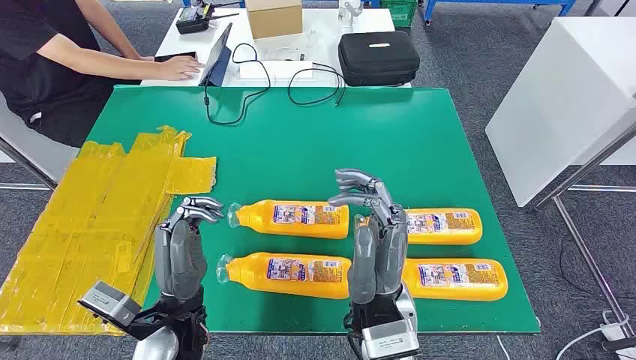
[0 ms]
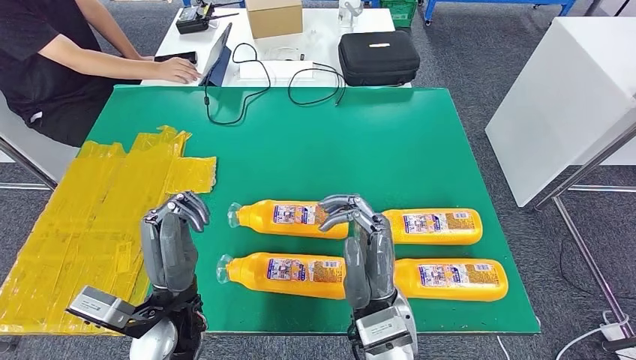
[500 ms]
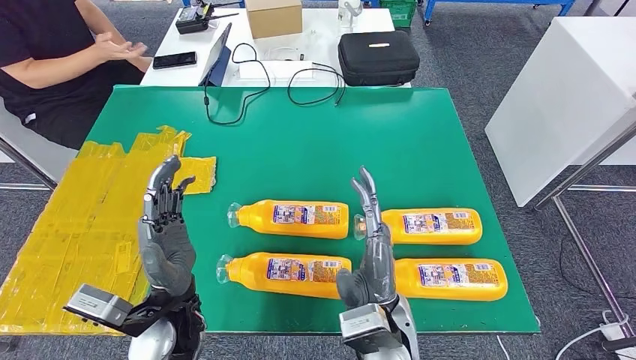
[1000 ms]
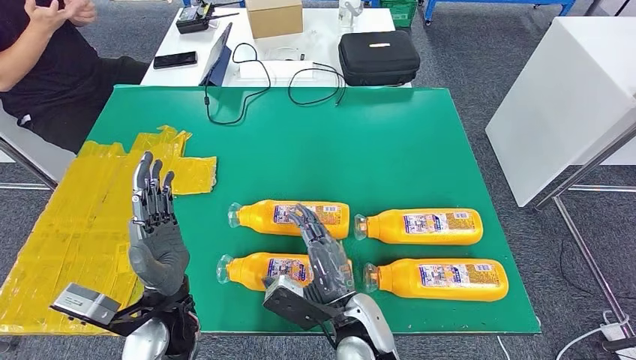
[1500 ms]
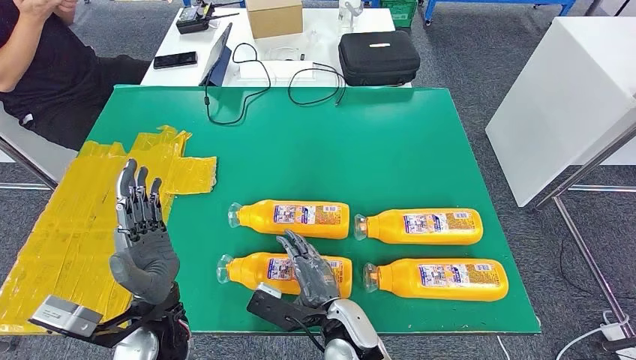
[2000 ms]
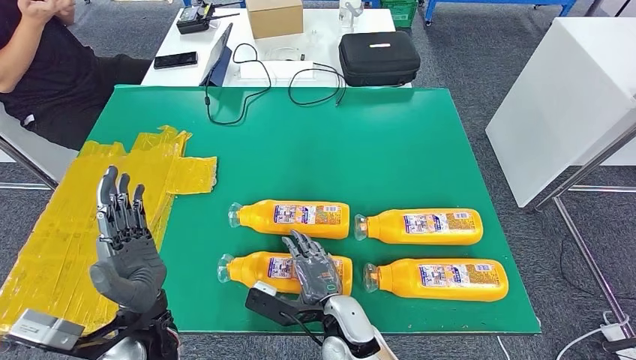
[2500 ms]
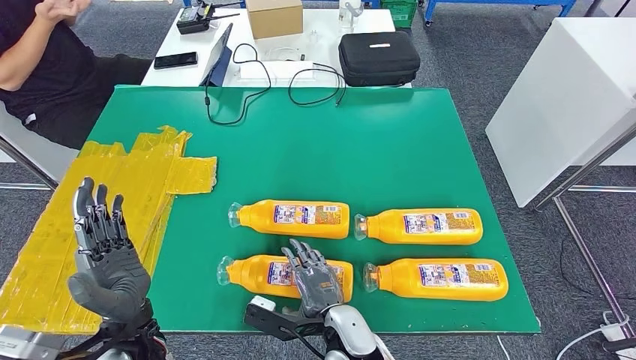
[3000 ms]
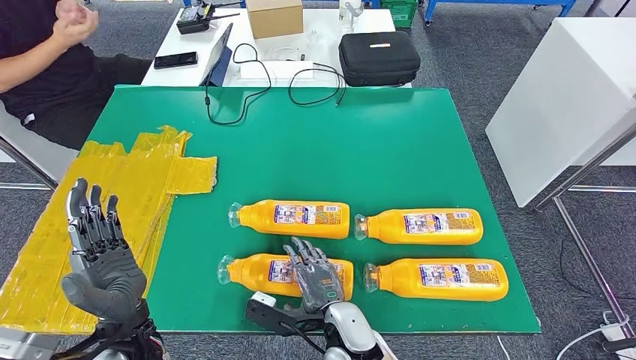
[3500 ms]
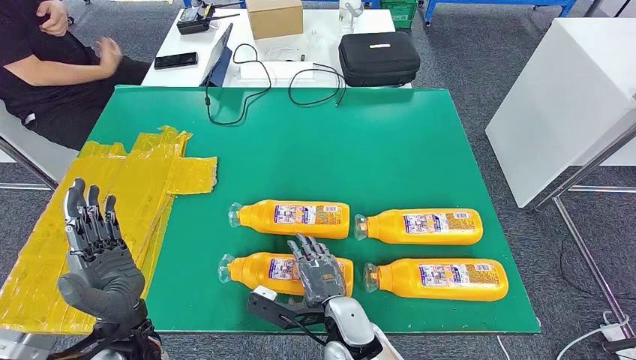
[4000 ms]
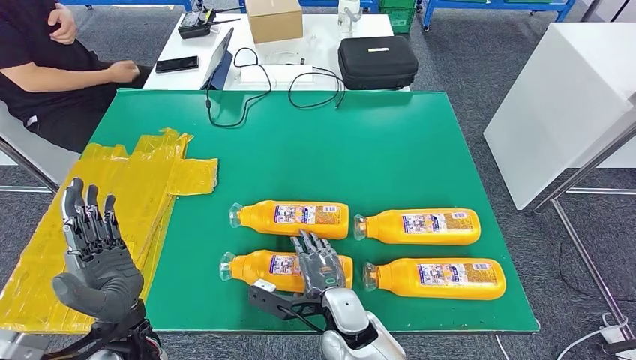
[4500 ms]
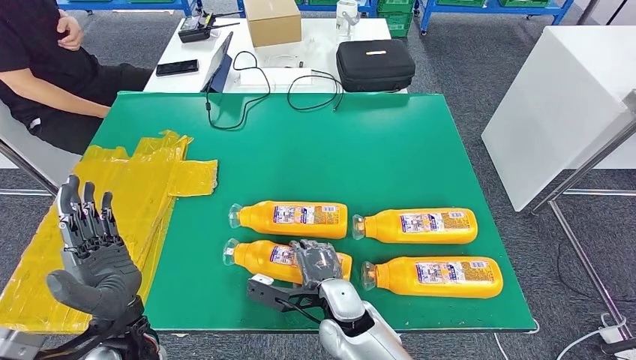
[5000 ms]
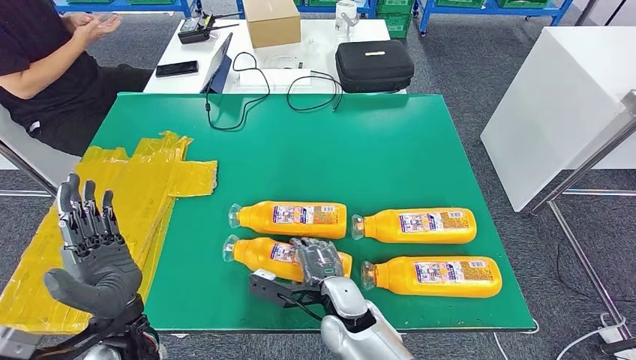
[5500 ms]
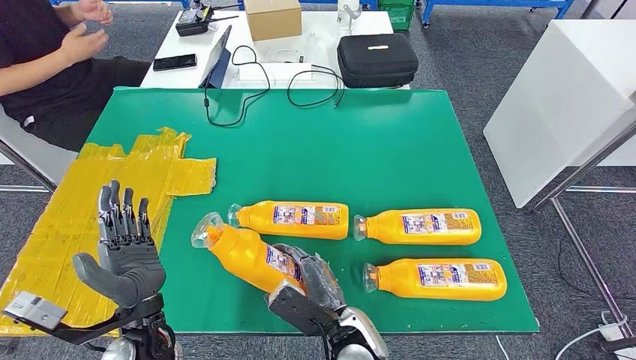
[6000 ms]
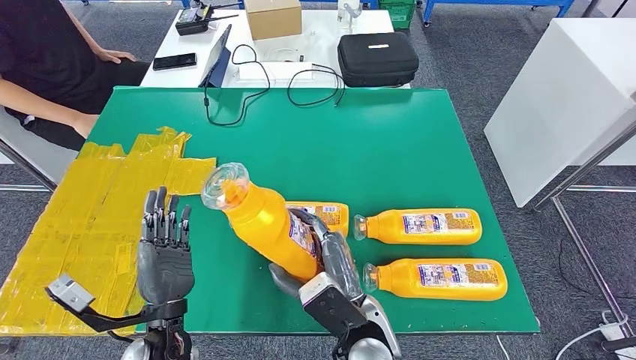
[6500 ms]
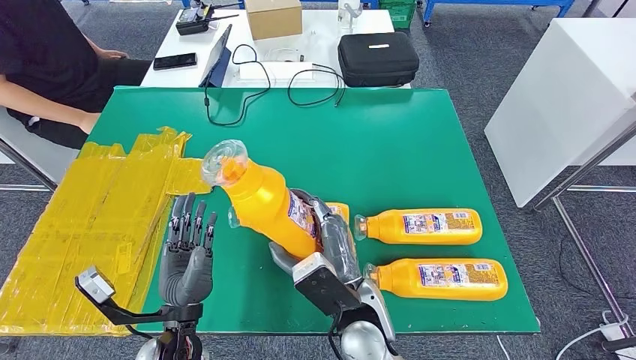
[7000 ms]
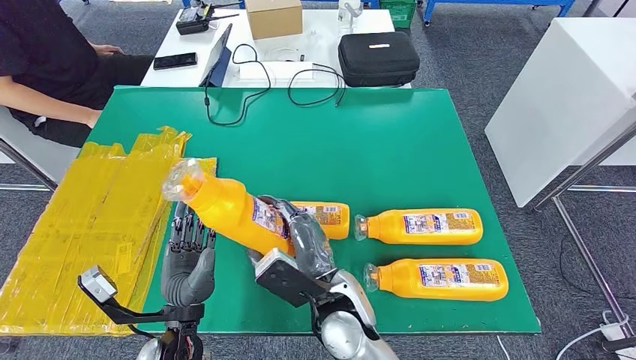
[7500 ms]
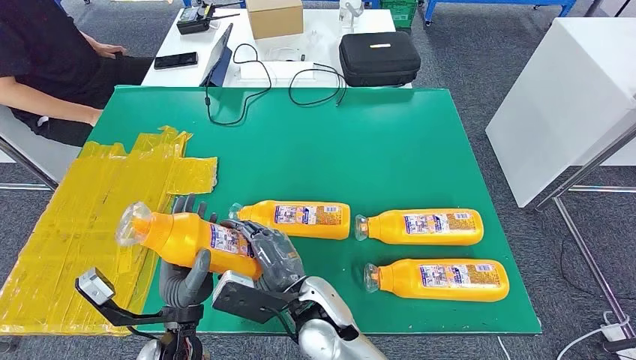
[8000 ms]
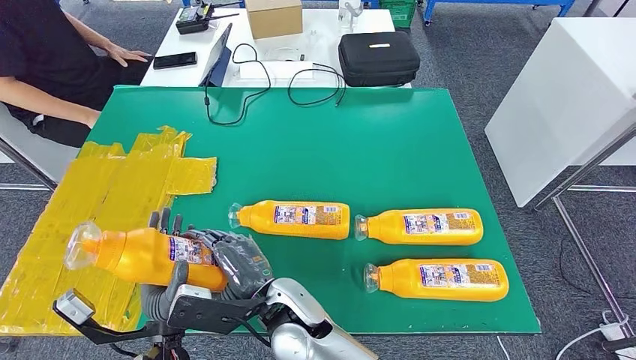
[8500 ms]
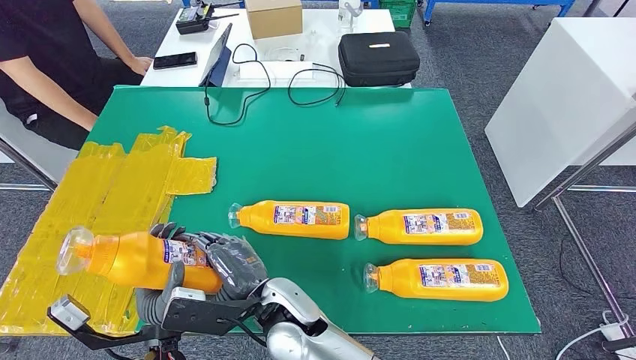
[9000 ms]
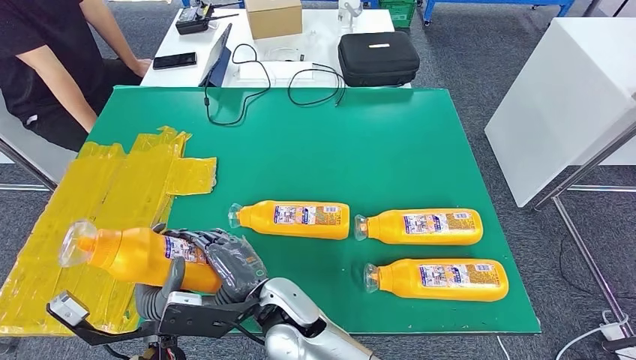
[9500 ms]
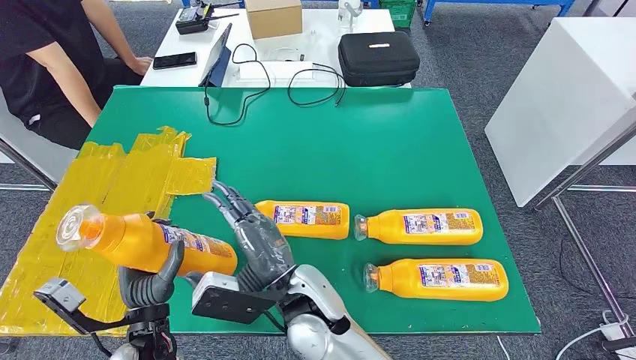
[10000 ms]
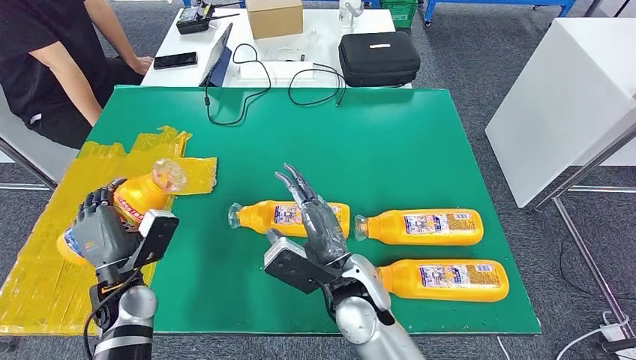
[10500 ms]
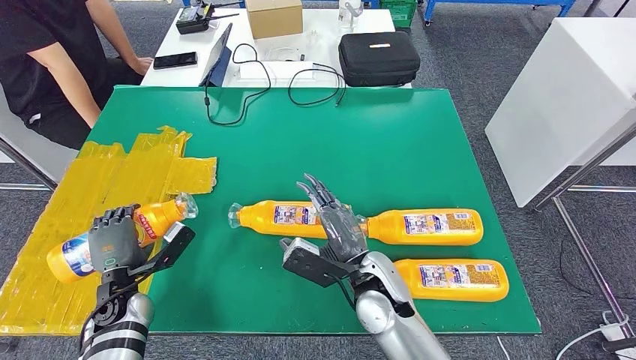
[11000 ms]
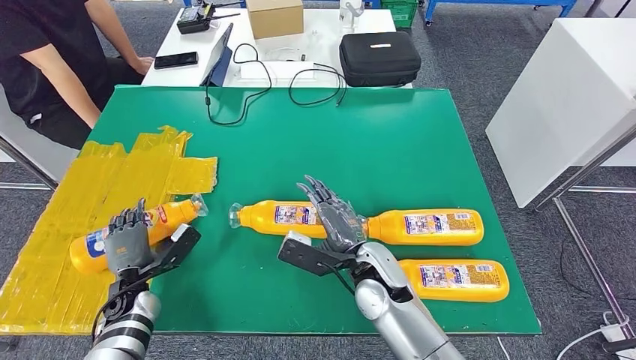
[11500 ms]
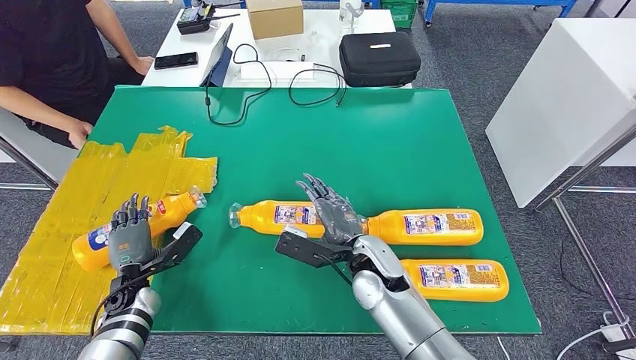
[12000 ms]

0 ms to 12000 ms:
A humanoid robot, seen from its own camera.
Step, 0 ms to 6500 ms: Take the bottle from the table.
Step, 7000 ms to 11500 ms: Flip the bottle to face forward.

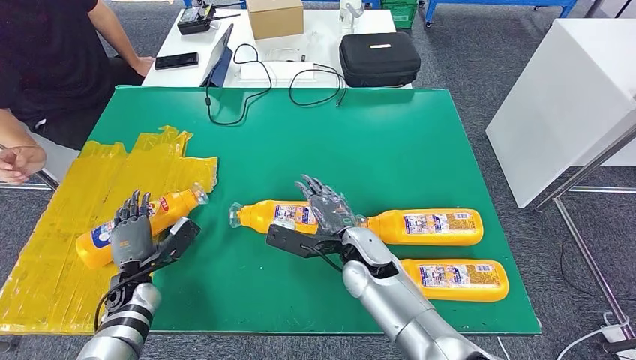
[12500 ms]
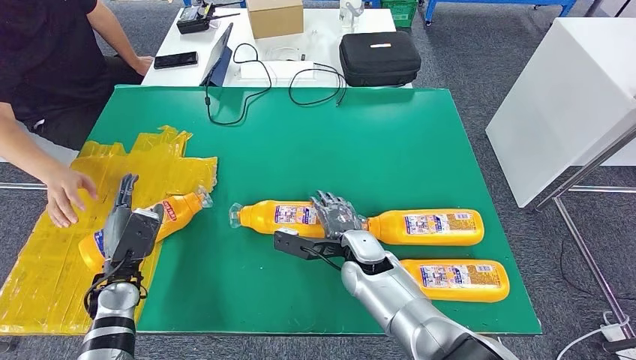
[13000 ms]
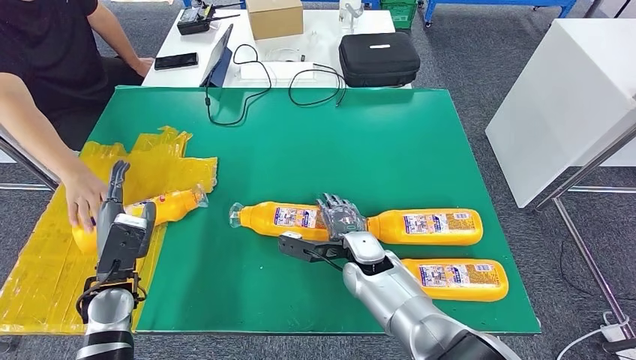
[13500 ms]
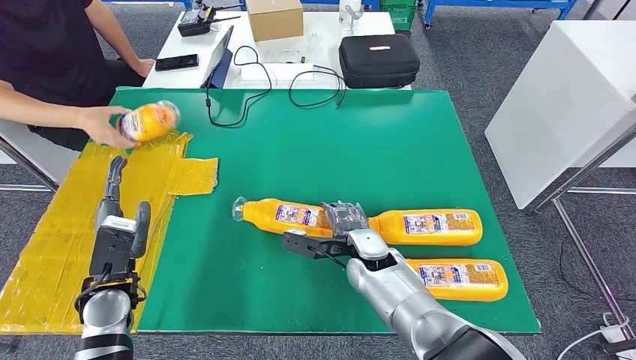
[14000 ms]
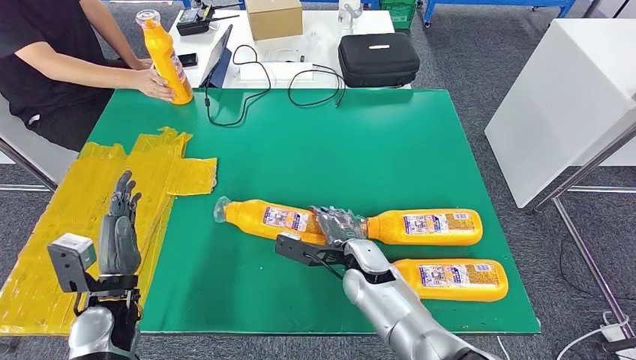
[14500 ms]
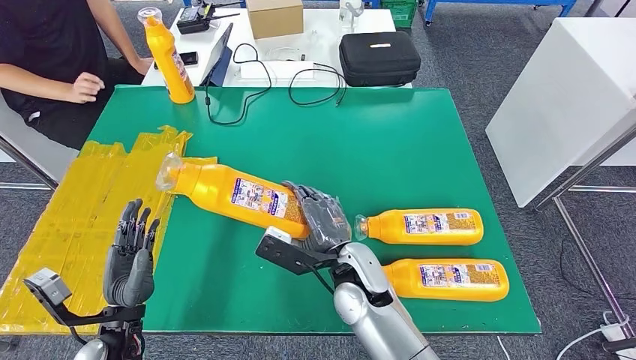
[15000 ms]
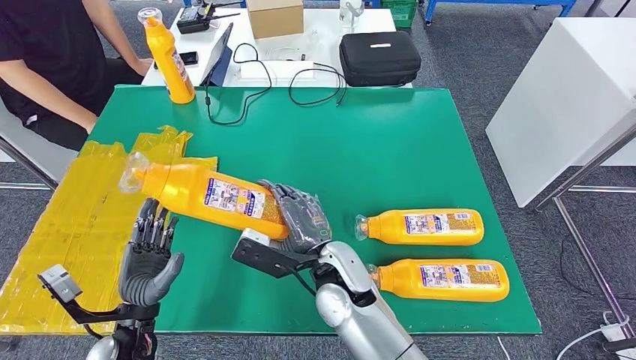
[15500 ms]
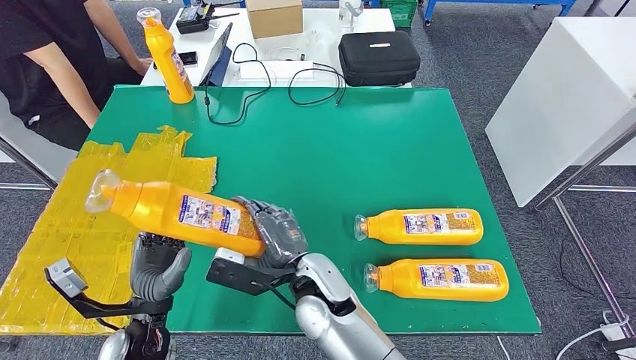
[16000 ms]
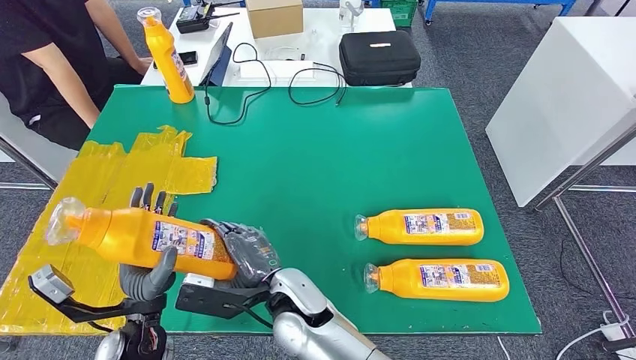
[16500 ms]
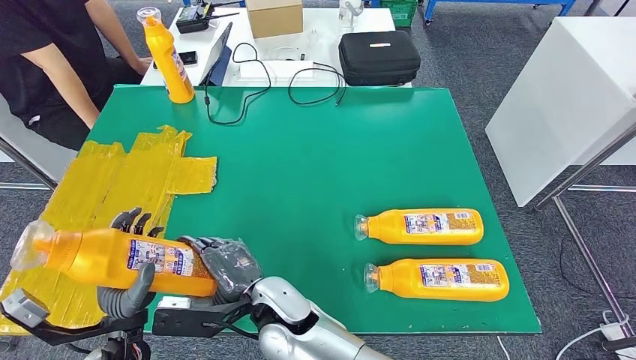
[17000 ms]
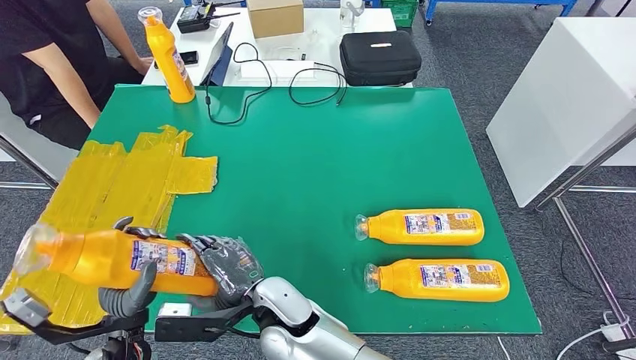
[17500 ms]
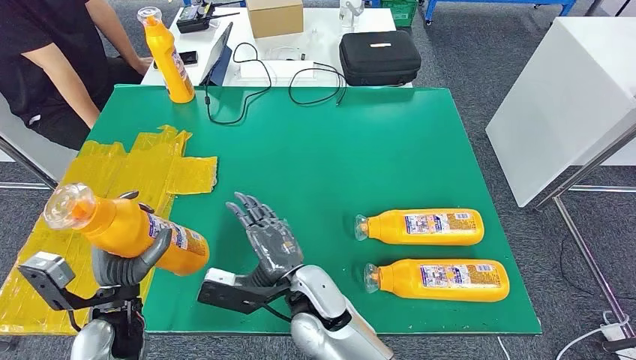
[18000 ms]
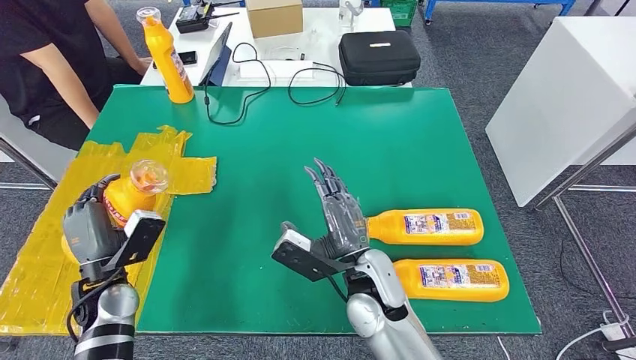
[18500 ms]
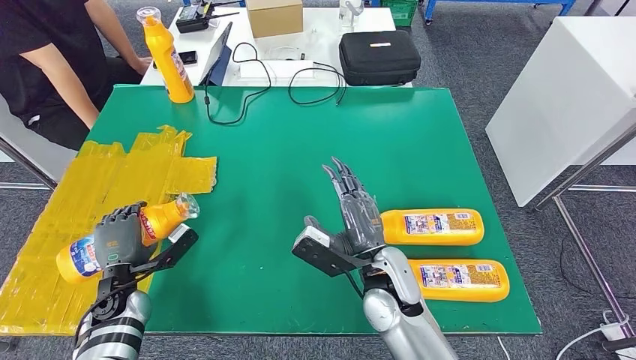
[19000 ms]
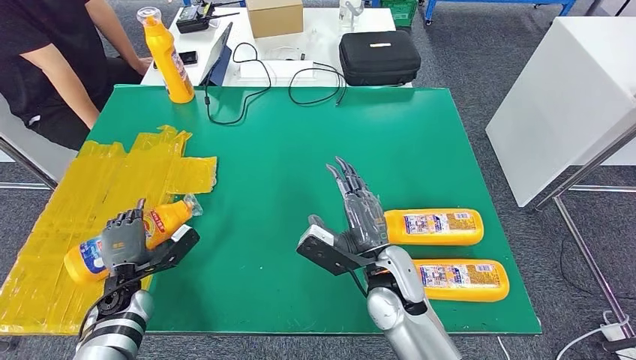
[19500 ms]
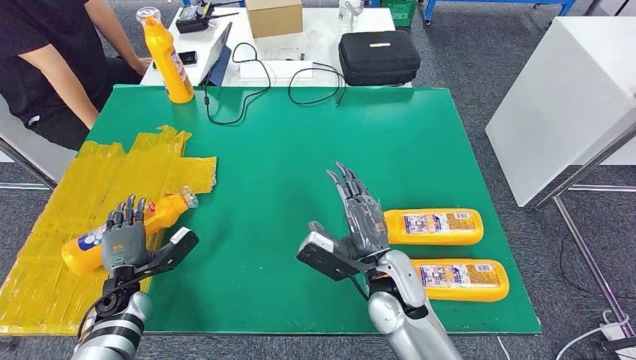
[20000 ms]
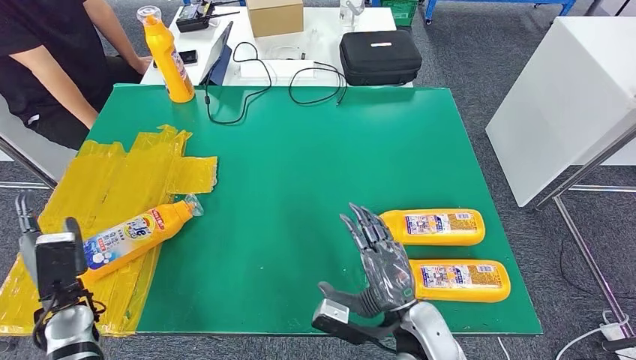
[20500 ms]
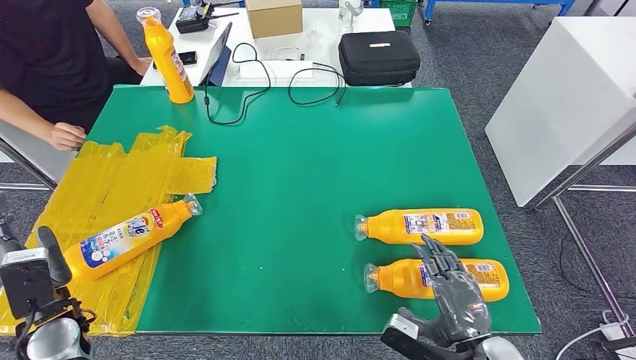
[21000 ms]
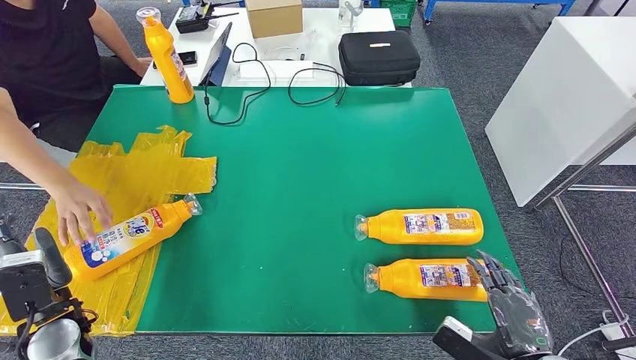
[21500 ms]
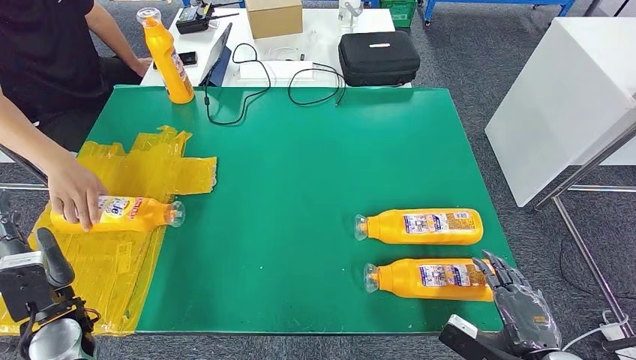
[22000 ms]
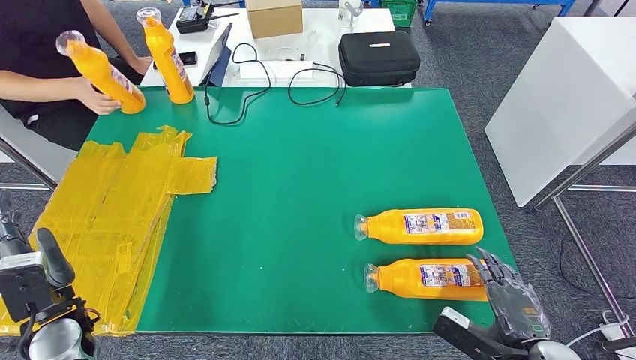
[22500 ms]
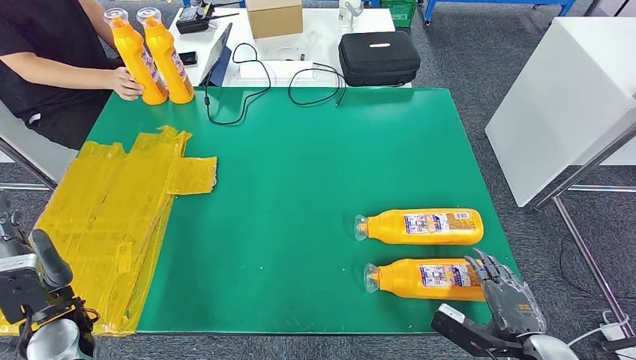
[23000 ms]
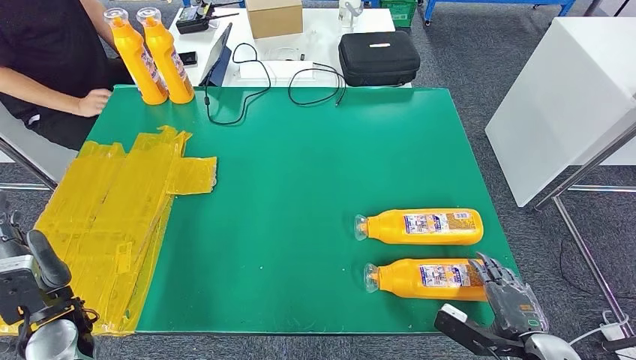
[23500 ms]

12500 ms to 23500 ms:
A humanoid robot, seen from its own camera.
Step, 12500 ms to 16000 ms: Pick up the bottle from the table.
Step, 16500 ms to 19500 ms: Flip the bottle to face forward.
12500 ms to 14500 ms: The left hand is displaced upward and backward by roughly 10 cm.
18000 ms to 20000 ms: The left hand moves downward, to the left and forward, approximately 15 cm. The right hand is displaced to the right by roughly 15 cm.
20000 ms to 21500 ms: The left hand heads upward and backward, covering roughly 10 cm; the right hand travels to the right and backward by some 25 cm.
21500 ms to 23500 ms: The right hand changes place by approximately 5 cm.
